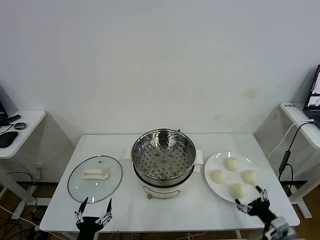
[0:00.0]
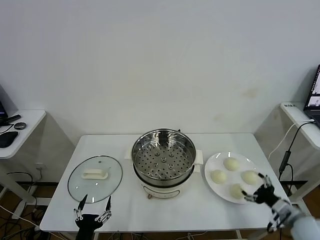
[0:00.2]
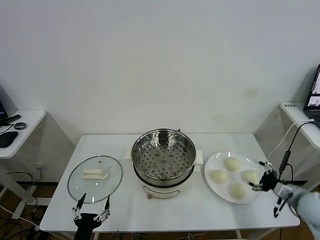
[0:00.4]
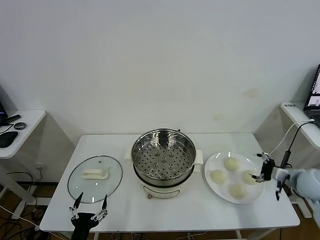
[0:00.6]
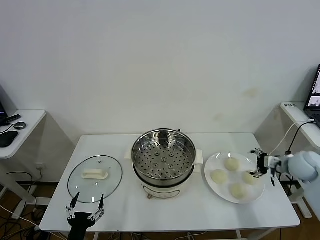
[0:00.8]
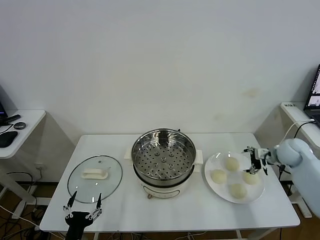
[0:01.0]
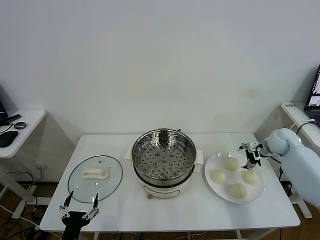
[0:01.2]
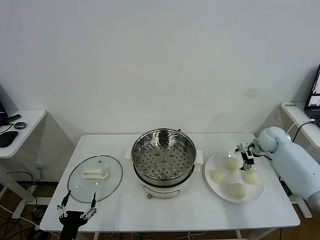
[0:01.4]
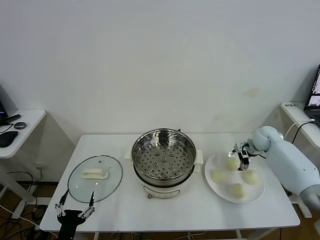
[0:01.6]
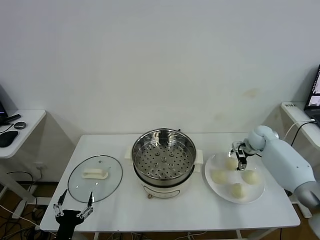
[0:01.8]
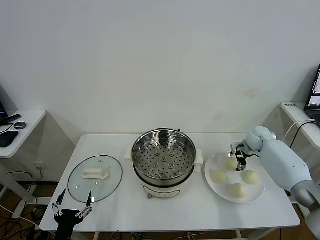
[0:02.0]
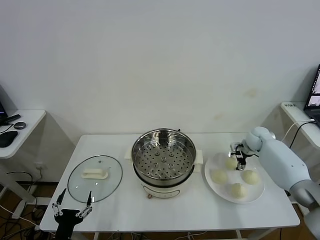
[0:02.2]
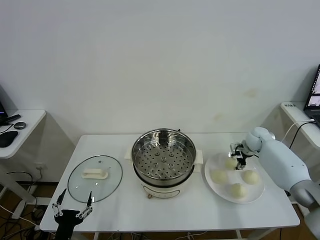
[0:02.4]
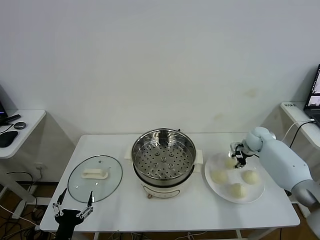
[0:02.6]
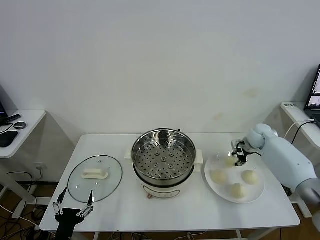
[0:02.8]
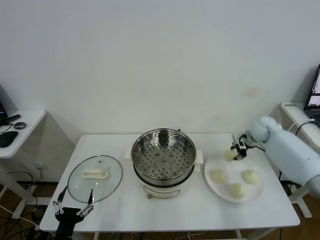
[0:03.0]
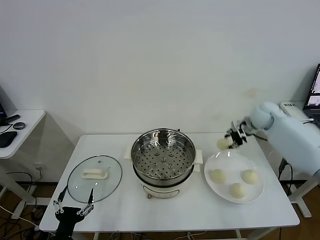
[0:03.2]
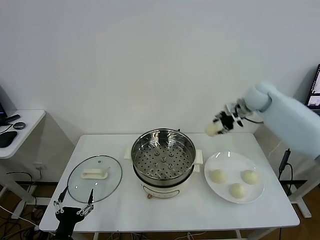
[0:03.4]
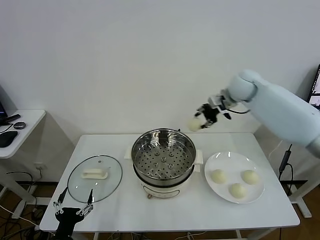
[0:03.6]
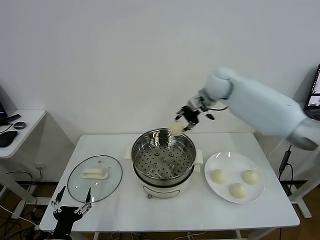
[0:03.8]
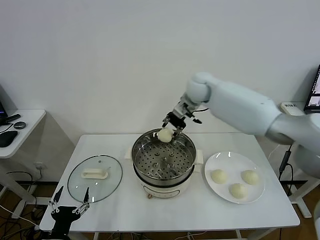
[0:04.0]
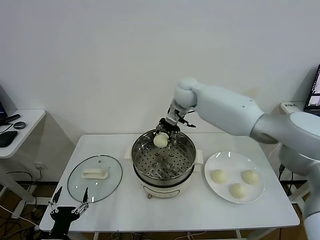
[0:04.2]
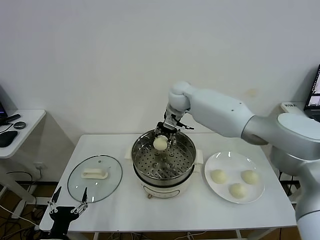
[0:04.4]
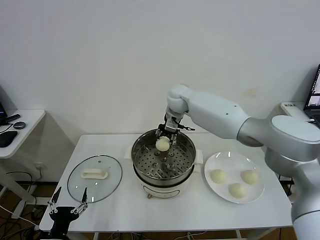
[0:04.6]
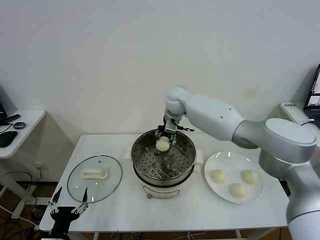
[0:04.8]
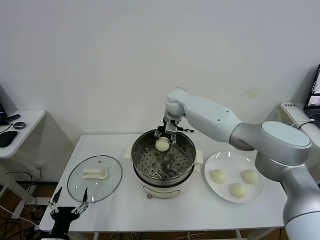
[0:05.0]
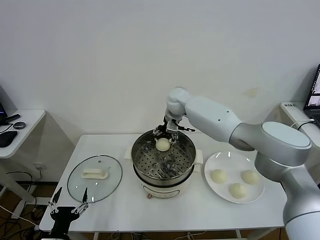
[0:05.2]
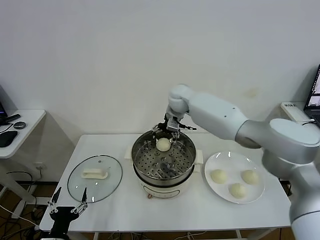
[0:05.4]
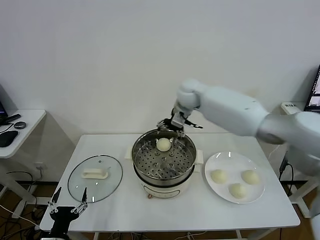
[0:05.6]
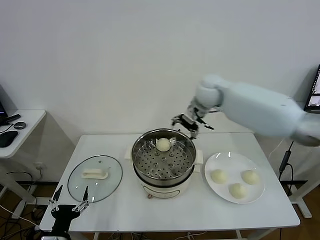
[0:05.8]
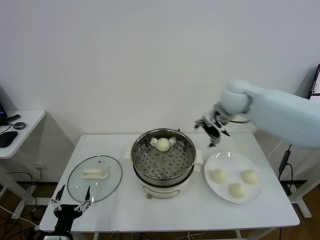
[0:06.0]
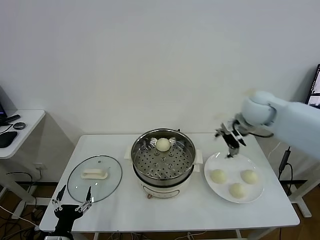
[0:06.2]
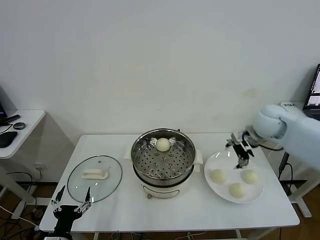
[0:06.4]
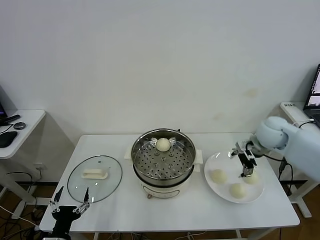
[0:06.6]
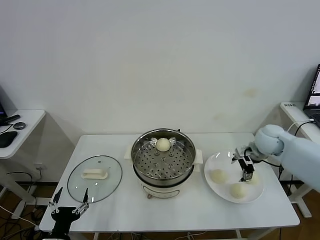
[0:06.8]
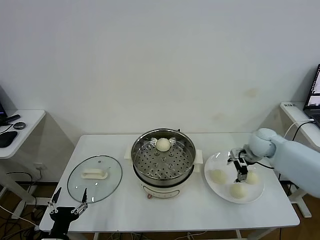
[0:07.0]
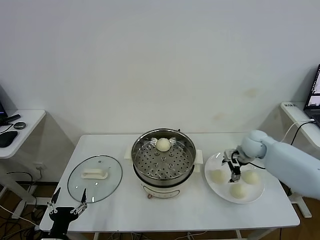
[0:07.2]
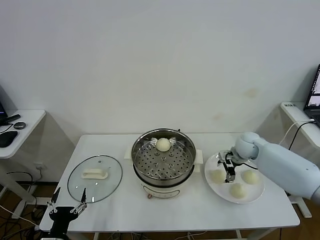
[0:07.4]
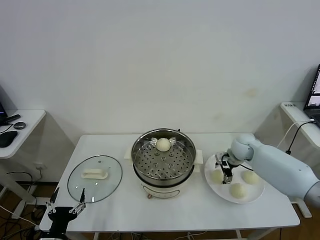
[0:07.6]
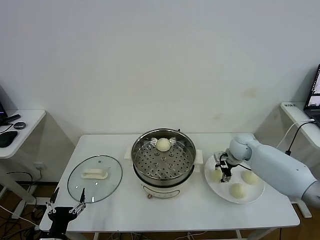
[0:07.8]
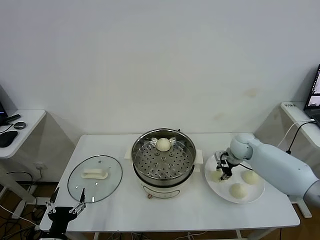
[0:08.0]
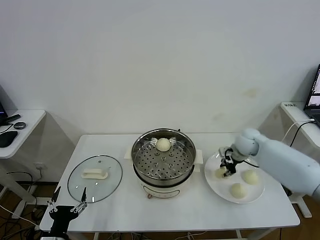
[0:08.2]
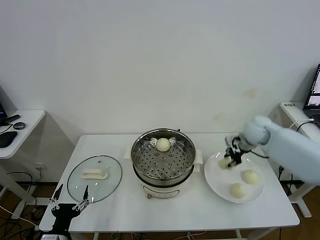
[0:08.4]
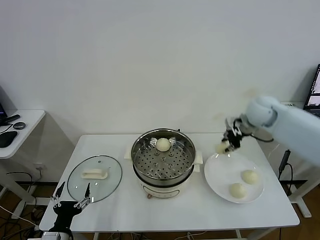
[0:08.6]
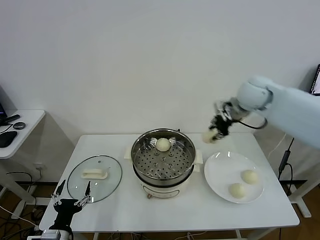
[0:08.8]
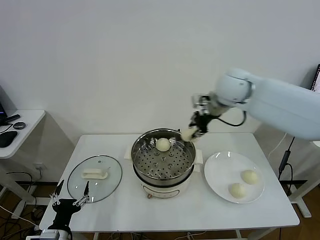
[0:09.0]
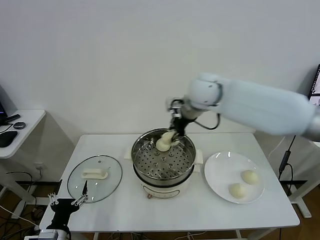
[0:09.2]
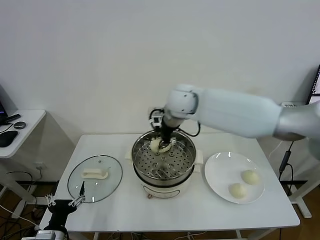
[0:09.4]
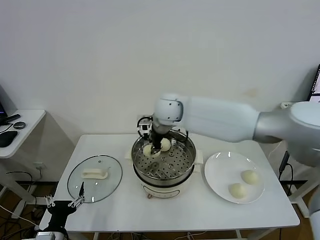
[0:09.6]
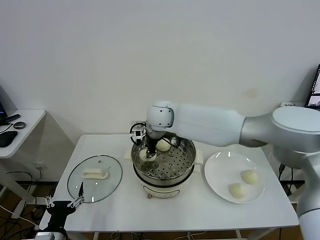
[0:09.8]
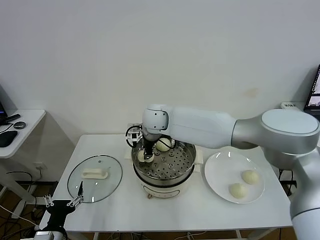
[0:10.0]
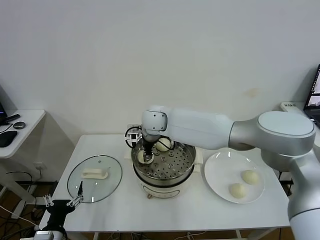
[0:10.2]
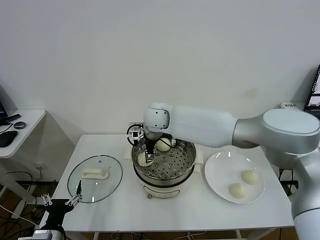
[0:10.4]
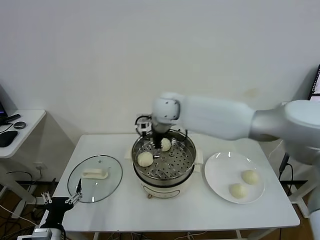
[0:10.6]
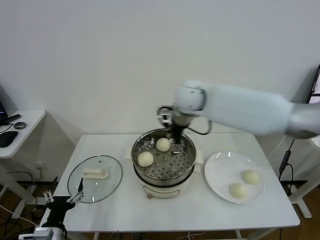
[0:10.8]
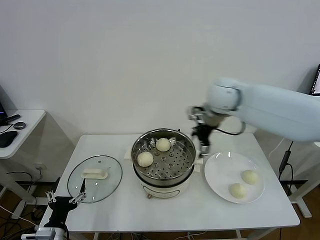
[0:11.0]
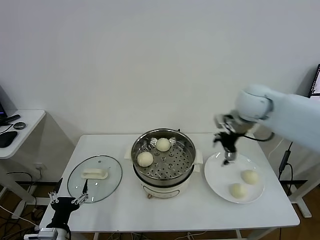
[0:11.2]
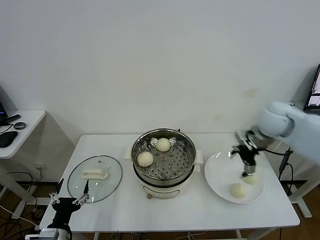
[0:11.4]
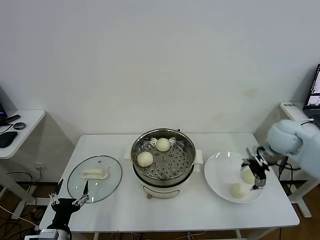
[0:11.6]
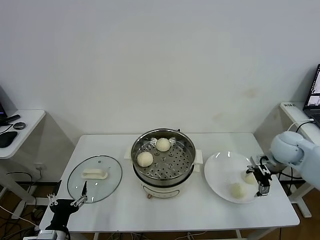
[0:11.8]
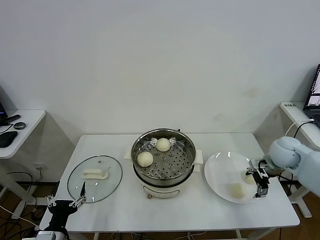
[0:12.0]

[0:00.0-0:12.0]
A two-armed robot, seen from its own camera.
Task of the whole recording: take steamed baozi put them in steamer.
Step, 0:00.0 to 0:02.0: Grasp the baozi in the plate with right gripper.
Step, 0:02.4 to 0:05.0: Place the baozi on the steamer with right gripper.
Step, 0:05.2 to 0:08.0: Grasp the baozi in the plate with right gripper.
Step, 0:08.2 to 0:10.4: Place the baozi on the steamer with right gripper.
0:01.6 to 0:03.0: The right gripper shifts roughly 5 cm upward, and closes.
0:03.0 to 0:04.4: The right gripper heads to the left, covering roughly 30 cm.
0:04.4 to 0:06.0: The right gripper is displaced to the right and backward by approximately 20 cm, and opens.
0:06.0 to 0:07.6: The right gripper is displaced downward by some 20 cm.
0:07.6 to 0:09.0: The right gripper is displaced upward and to the left by roughly 30 cm, and closes up.
0:09.0 to 0:10.4: The right gripper travels to the left and downward by approximately 20 cm, and opens its fingers.
0:10.4 to 0:12.0: The right gripper moves to the right, about 40 cm.

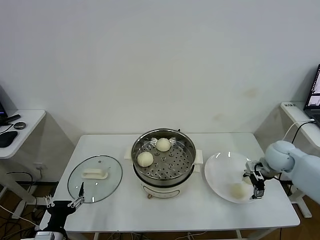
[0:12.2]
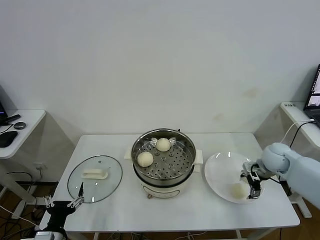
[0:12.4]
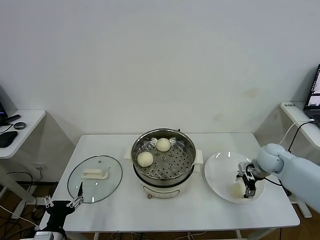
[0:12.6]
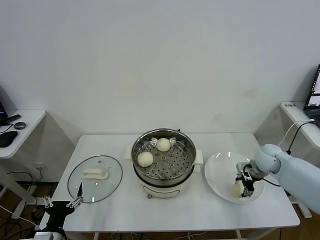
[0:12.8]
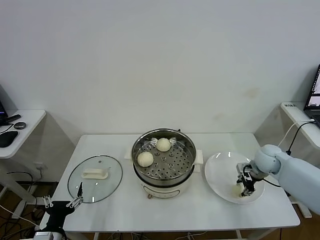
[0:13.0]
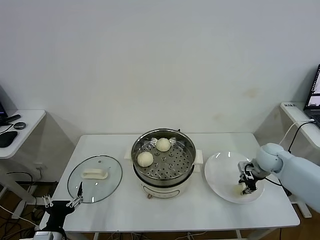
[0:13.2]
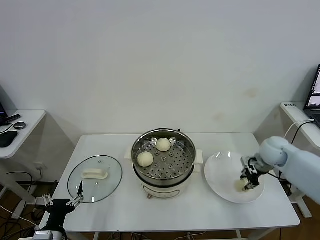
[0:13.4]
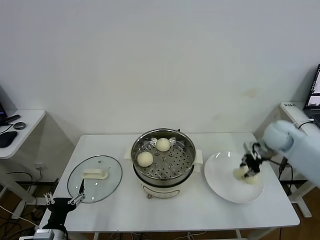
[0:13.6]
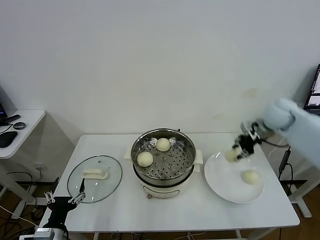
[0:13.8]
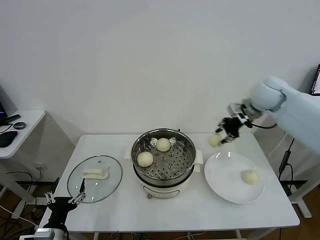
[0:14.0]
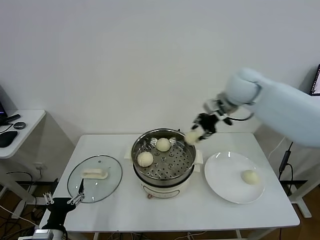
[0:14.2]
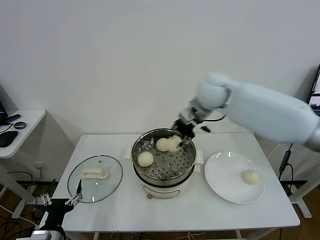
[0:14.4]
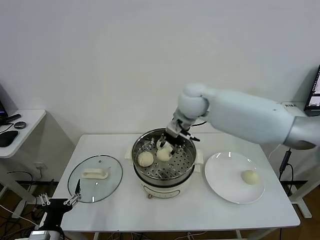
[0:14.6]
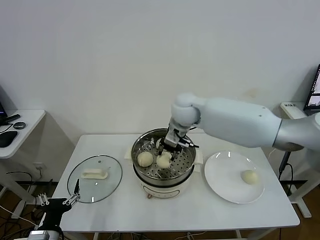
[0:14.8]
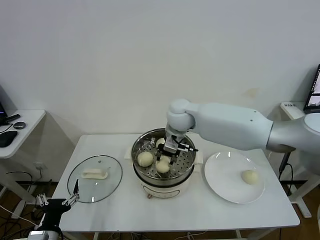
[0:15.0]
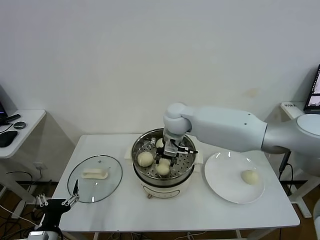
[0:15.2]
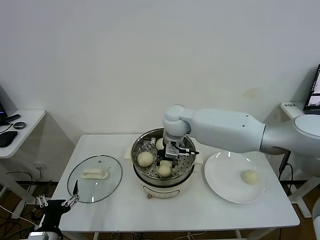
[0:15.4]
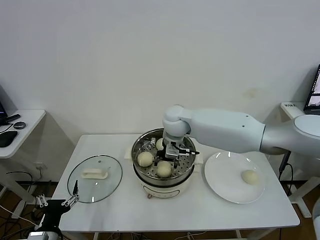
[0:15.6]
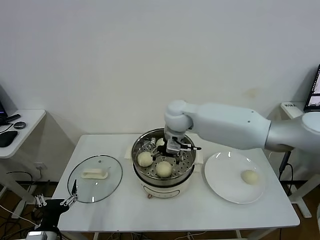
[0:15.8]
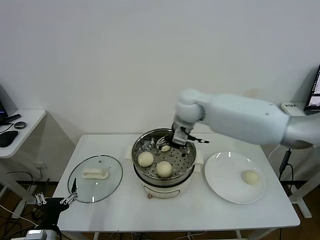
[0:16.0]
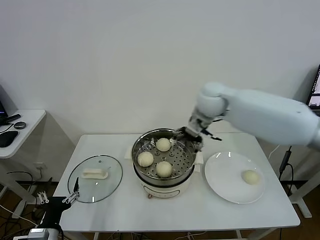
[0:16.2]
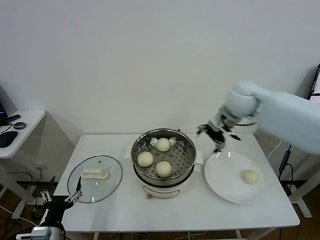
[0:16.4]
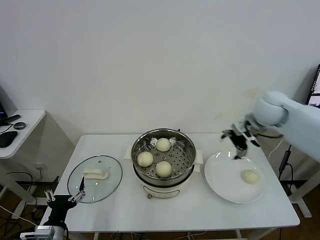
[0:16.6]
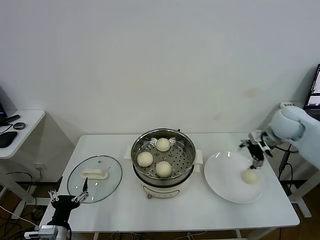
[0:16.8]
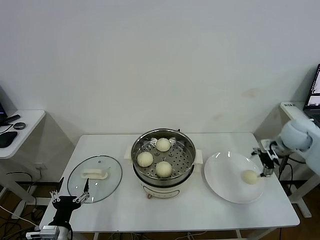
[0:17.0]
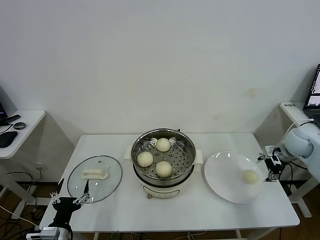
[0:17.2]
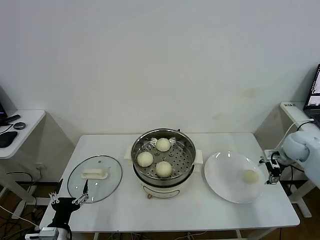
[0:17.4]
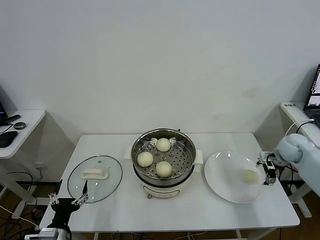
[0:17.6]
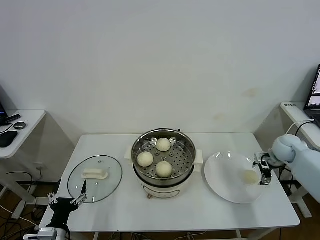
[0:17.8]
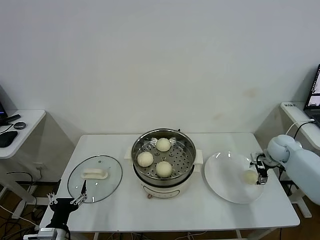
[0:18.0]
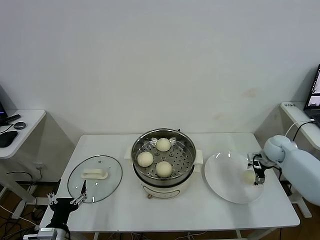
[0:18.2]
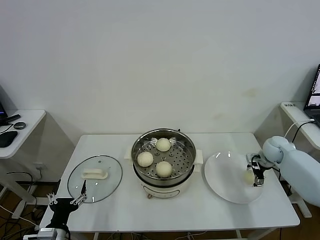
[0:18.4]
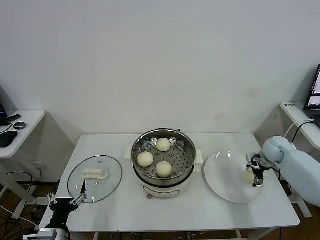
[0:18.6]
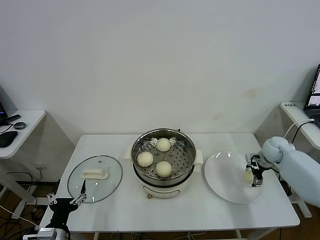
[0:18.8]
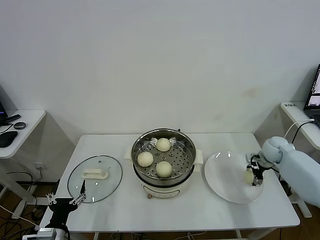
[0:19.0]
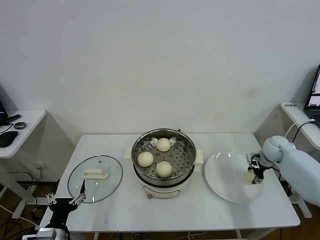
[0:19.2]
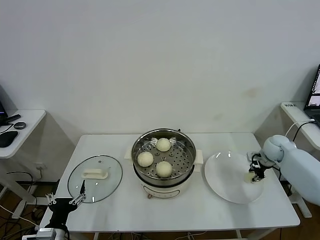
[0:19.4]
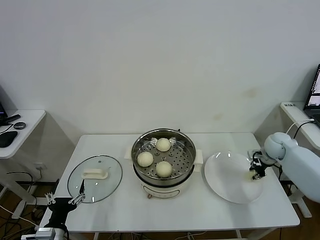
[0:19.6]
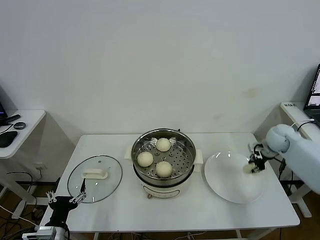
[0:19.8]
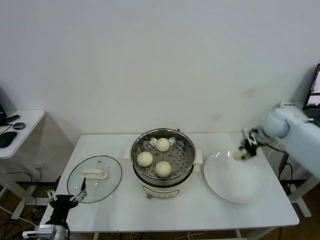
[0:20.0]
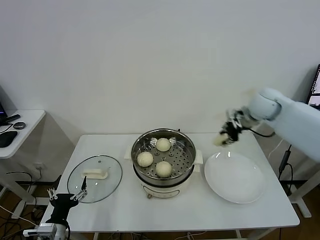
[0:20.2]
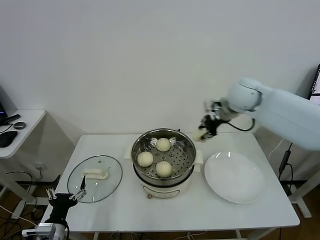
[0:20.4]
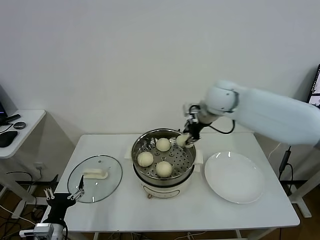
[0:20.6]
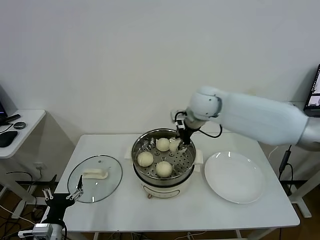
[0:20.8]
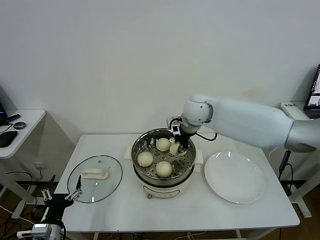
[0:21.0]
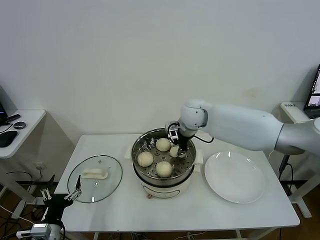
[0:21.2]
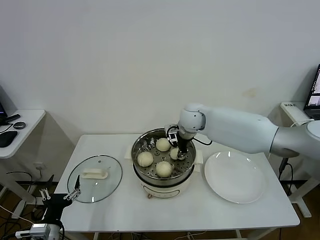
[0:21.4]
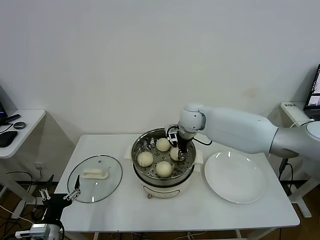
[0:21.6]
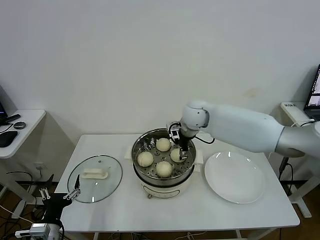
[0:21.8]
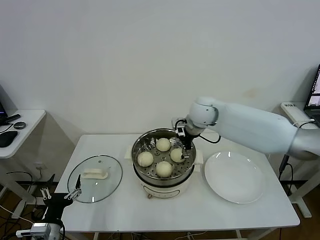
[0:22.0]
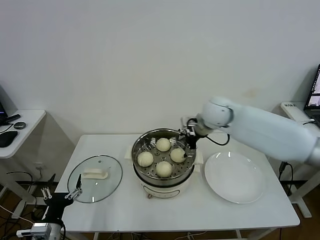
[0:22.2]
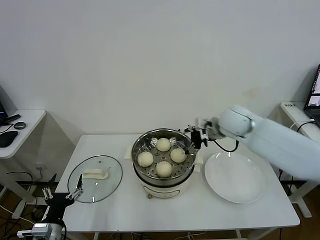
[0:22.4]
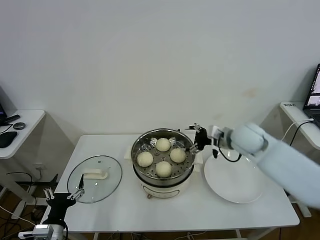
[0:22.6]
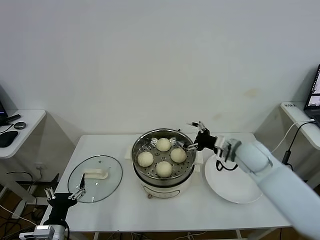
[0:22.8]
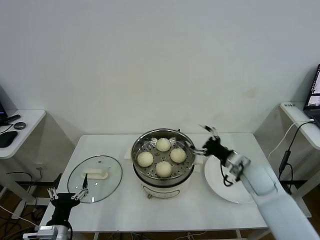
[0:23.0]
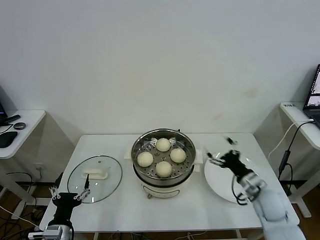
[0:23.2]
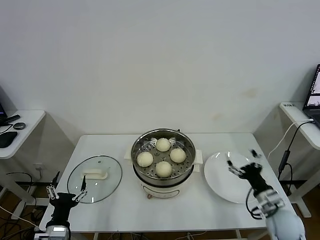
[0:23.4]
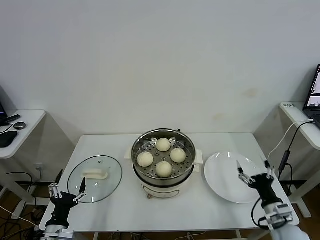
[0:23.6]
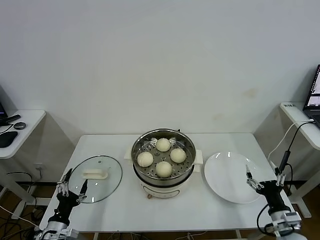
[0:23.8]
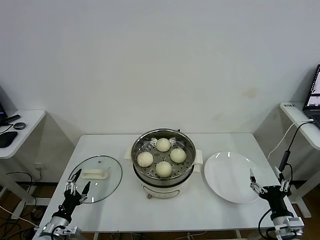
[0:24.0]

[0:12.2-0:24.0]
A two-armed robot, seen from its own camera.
Task of the whole recording: take steamed baozi put them in steamer.
Step, 0:13.0 to 0:15.6: Place the baozi on the steamer with right gripper.
Step, 0:15.8 to 0:19.0: Grasp the baozi in the plate with right gripper.
Step, 0:19.4 to 0:22.0: Place the baozi on the steamer with right gripper.
0:12.2 to 0:13.6: The right gripper shifts approximately 5 cm upward, and closes.
0:13.6 to 0:15.2: The right gripper travels to the left by approximately 35 cm.
0:15.2 to 0:16.6: The right gripper travels to the right by roughly 30 cm, and opens up.
0:16.6 to 0:18.2: The right gripper heads downward and to the right, covering some 25 cm.
0:18.2 to 0:19.6: The right gripper closes its fingers.
0:19.6 to 0:21.0: The right gripper is displaced to the left and upward by about 35 cm.
0:21.0 to 0:22.6: The right gripper moves to the right and backward, about 15 cm, and opens.
0:22.6 to 0:24.0: The left gripper heads downward, covering roughly 5 cm; the right gripper travels backward, downward and to the right by roughly 35 cm.